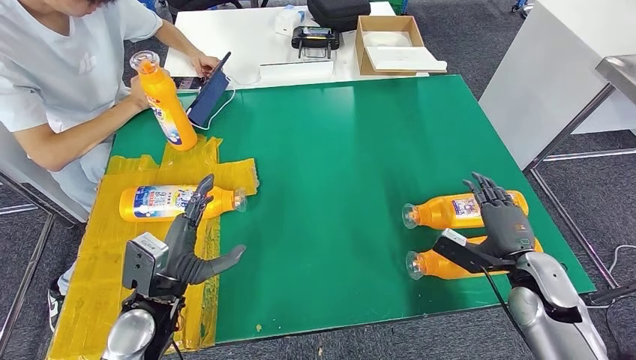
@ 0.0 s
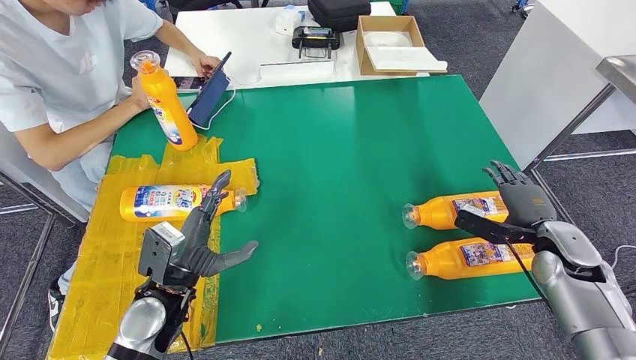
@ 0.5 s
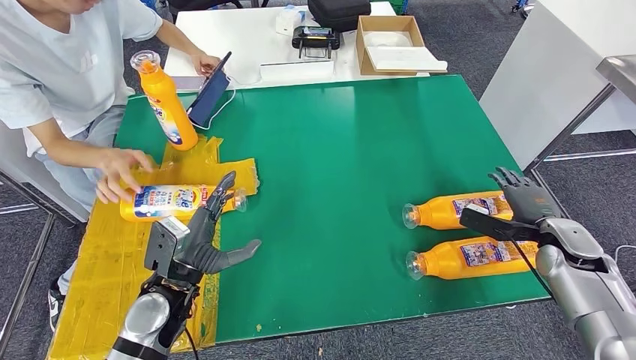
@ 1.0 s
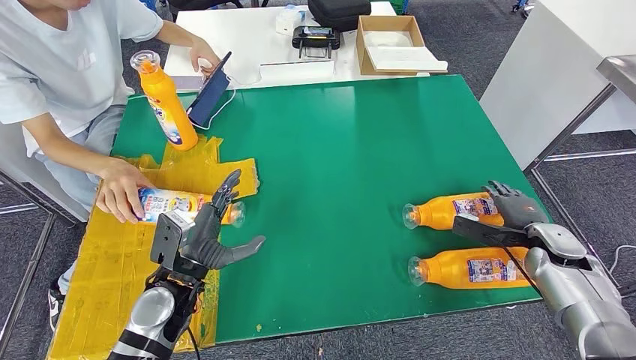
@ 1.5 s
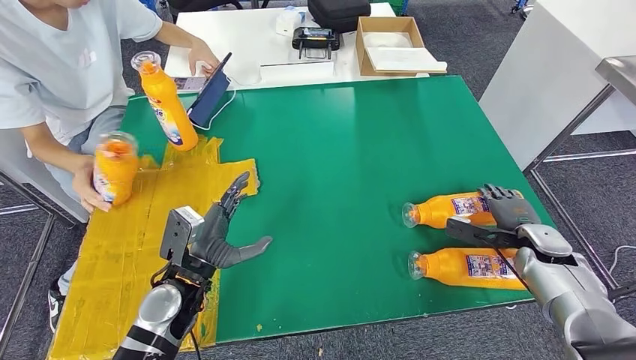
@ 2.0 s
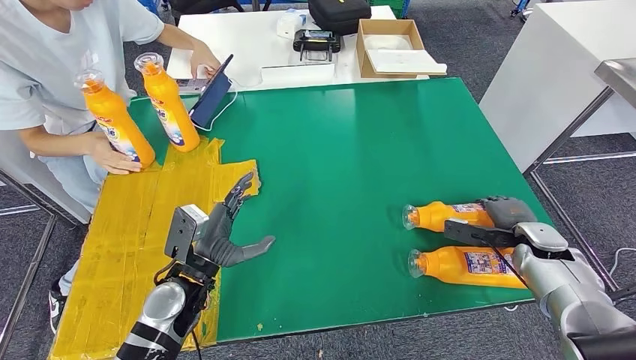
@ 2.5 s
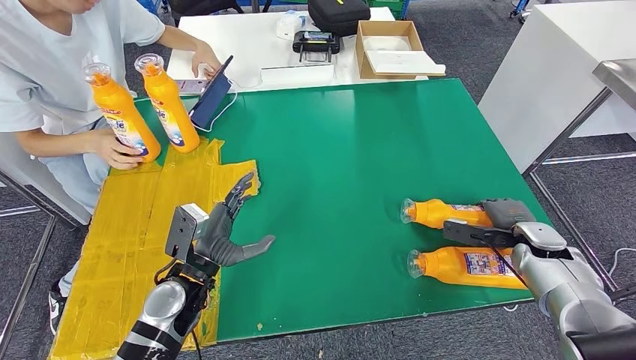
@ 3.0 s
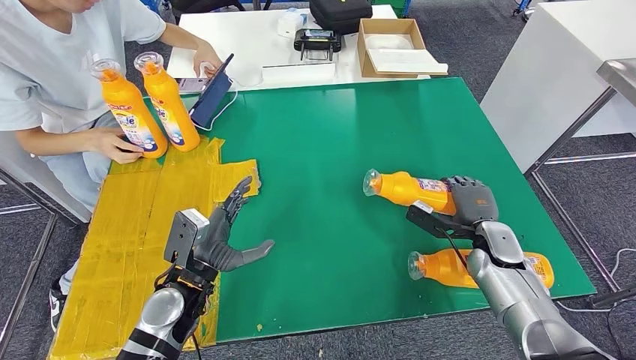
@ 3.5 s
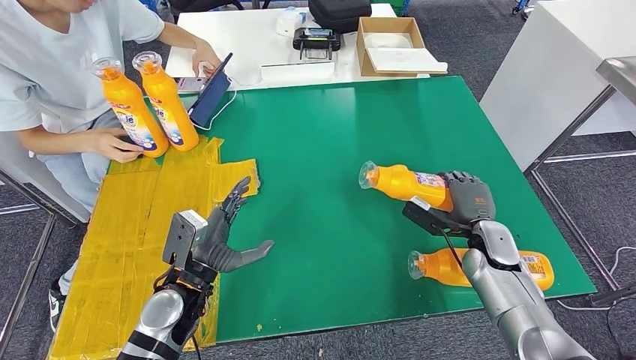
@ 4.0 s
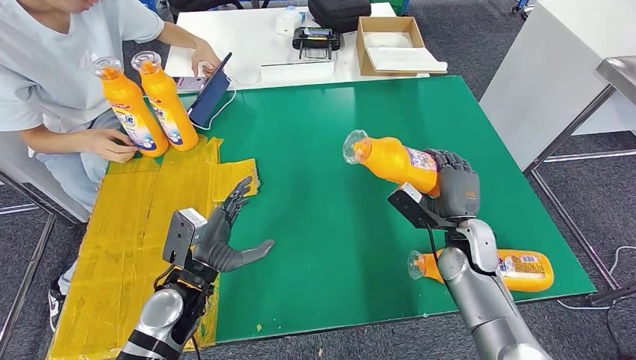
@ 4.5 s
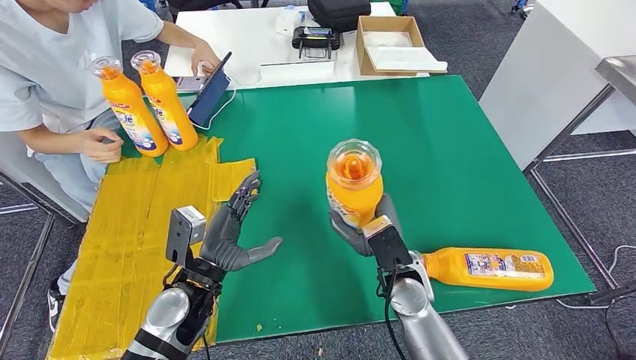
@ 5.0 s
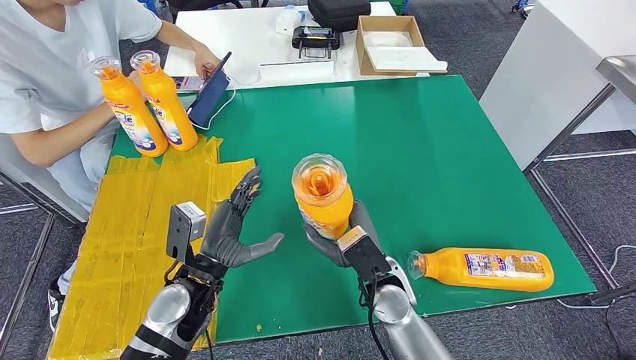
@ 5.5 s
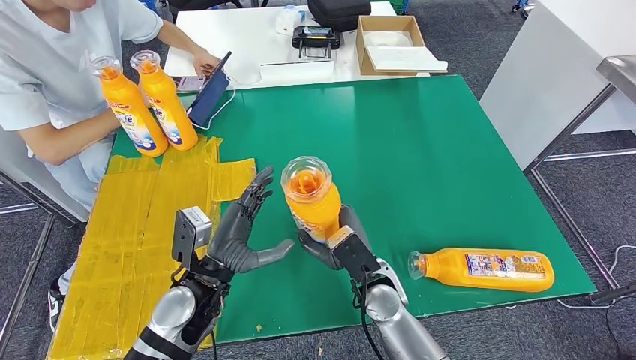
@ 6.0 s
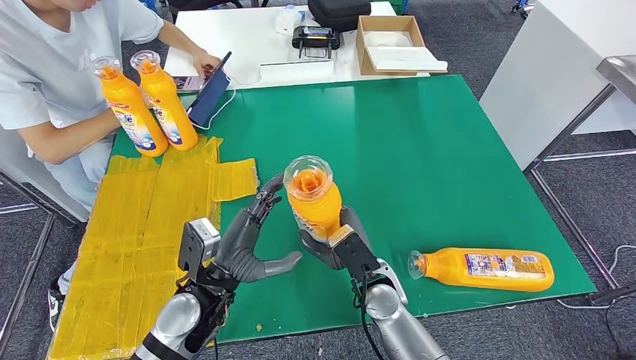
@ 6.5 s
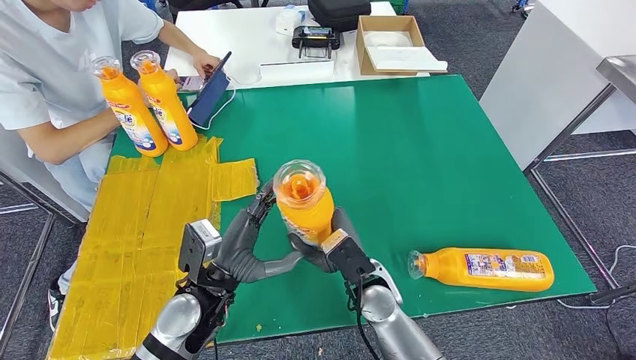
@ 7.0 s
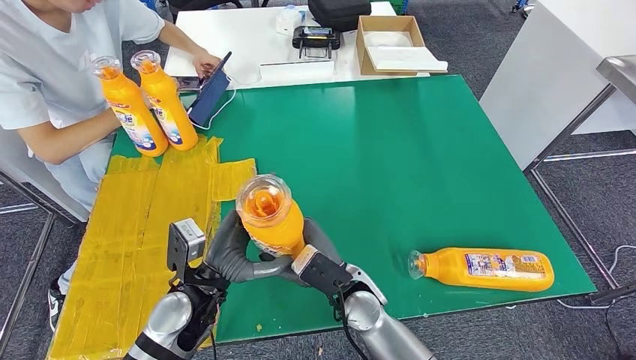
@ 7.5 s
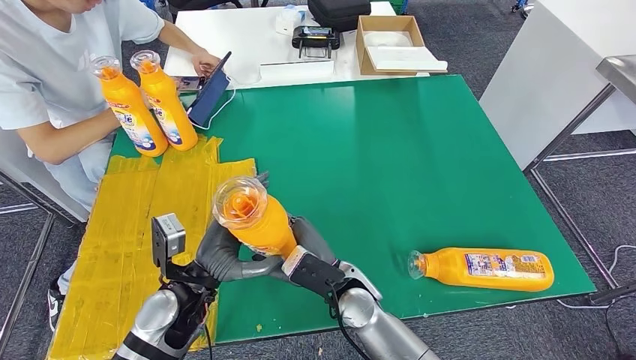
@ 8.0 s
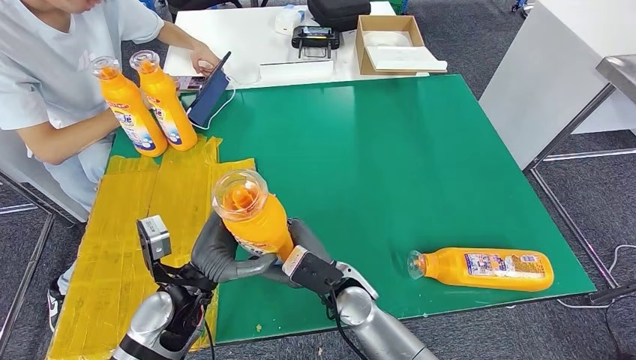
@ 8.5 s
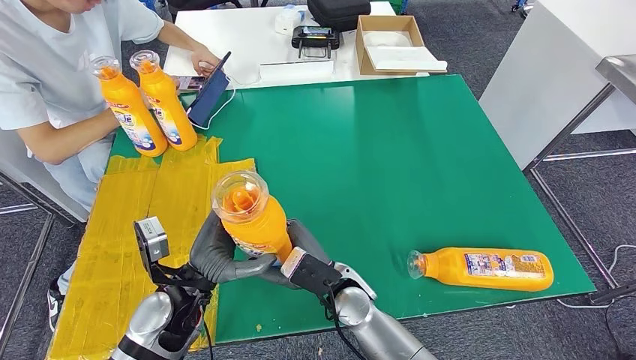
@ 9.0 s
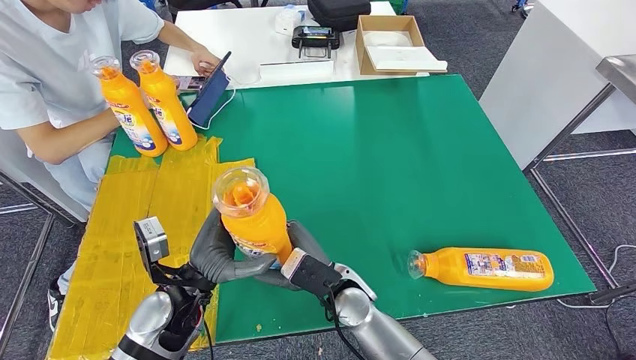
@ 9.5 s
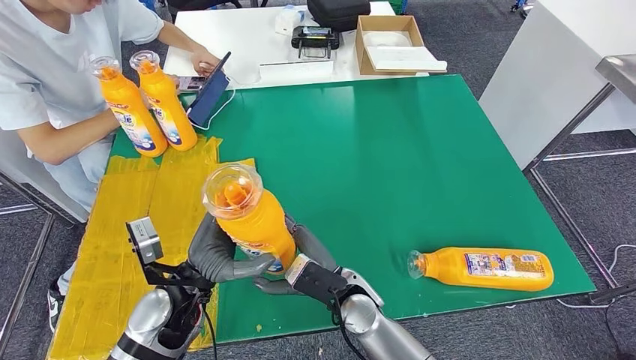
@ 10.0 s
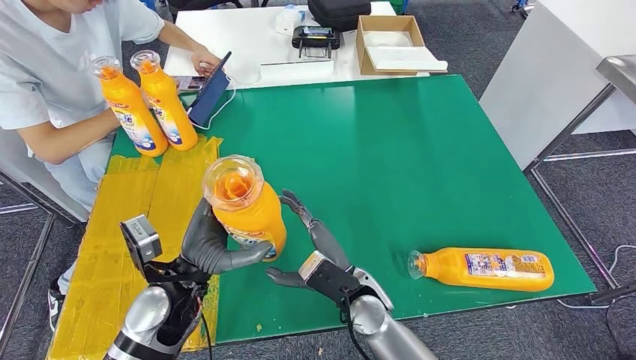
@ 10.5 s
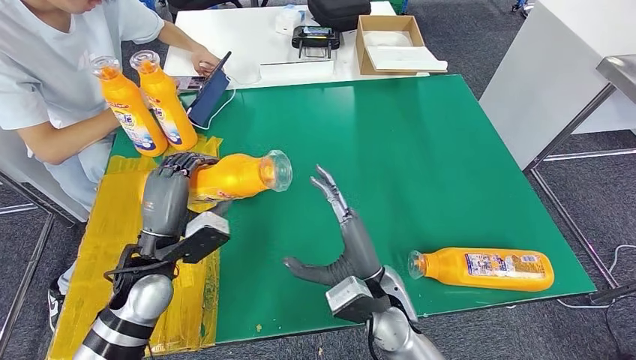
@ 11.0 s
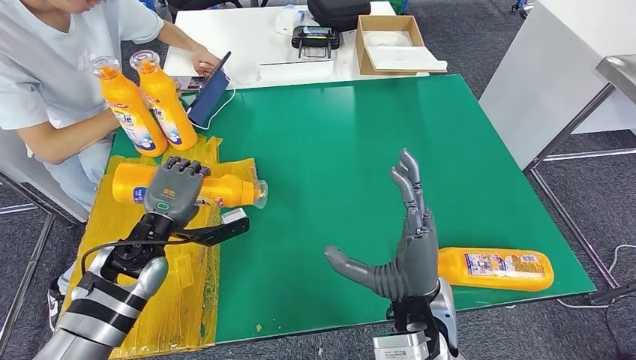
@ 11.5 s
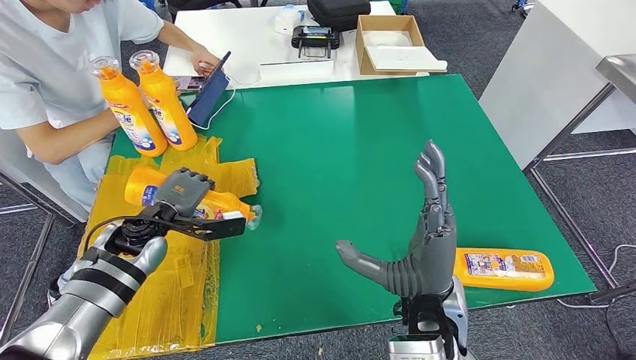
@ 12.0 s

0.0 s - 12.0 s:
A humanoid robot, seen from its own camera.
Step, 3.0 s - 6.0 s: Pick up the fast-moving consumer goods bottle from the table.
0.0 s - 2.0 s: The right hand heads forward and to the right, covering some 10 cm.
2.0 s - 4.0 s: The right hand goes approximately 10 cm to the left.
6.0 s - 8.0 s: The right hand heads to the left, covering roughly 5 cm.
8.0 s - 10.0 s: The hands make only small movements.
10.0 s - 12.0 s: The left hand travels forward and to the left by approximately 15 cm. The right hand travels upward and to the right by some 15 cm.

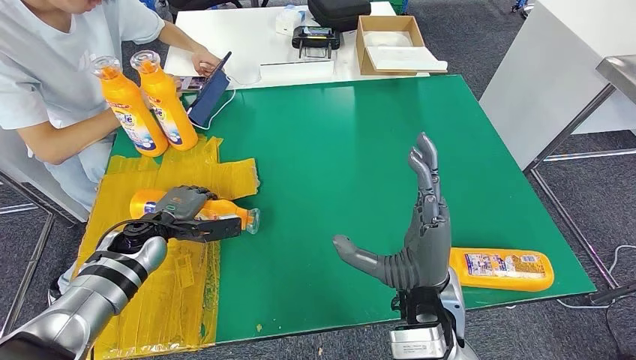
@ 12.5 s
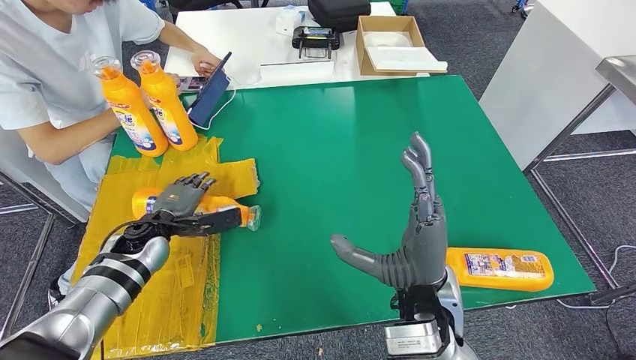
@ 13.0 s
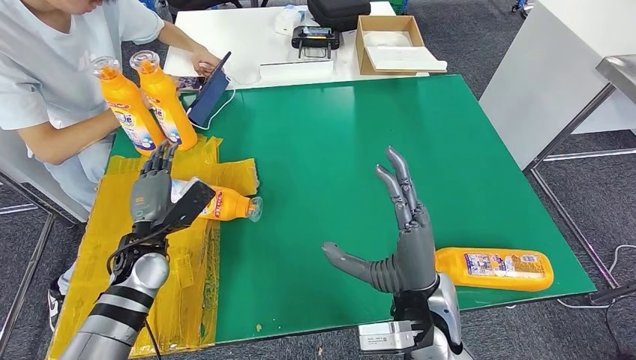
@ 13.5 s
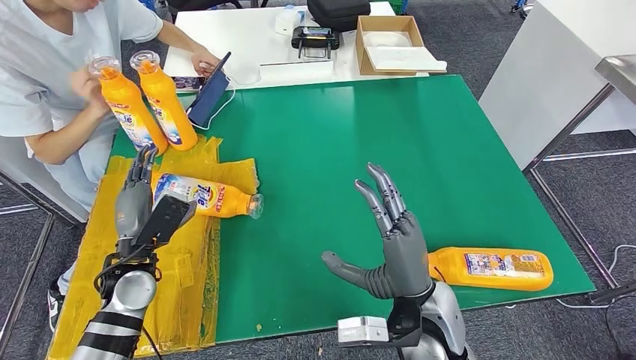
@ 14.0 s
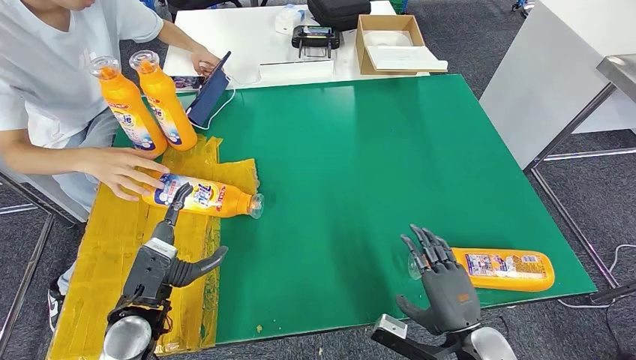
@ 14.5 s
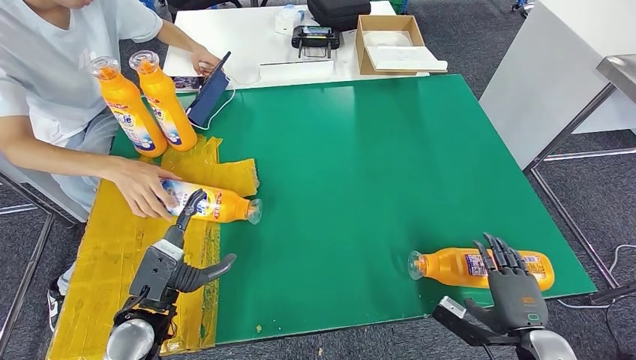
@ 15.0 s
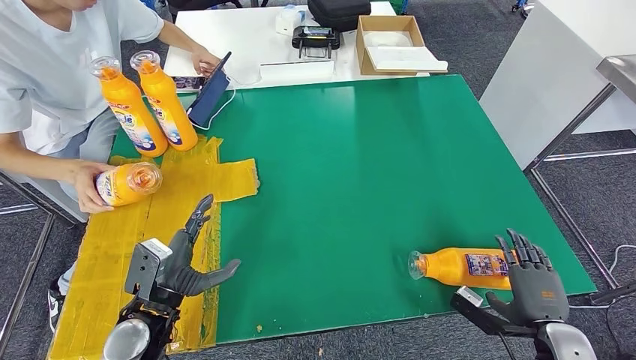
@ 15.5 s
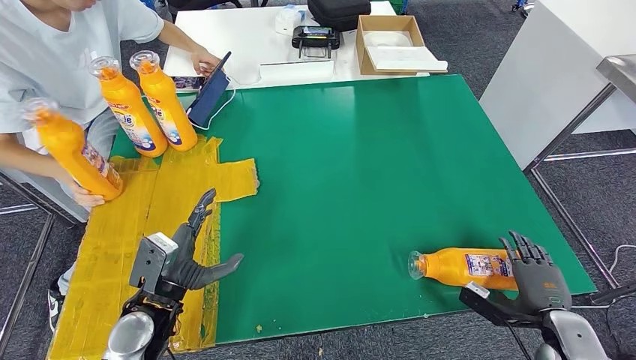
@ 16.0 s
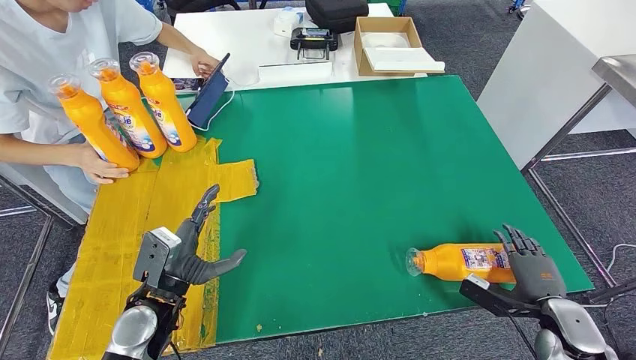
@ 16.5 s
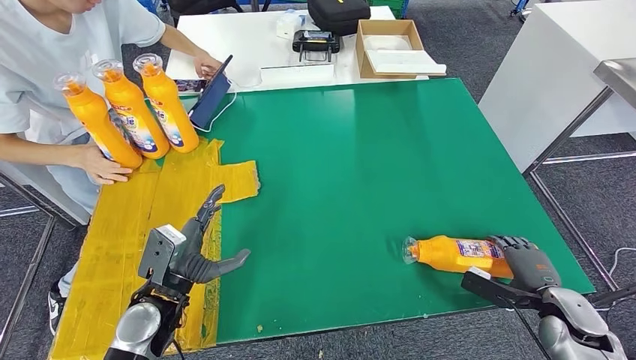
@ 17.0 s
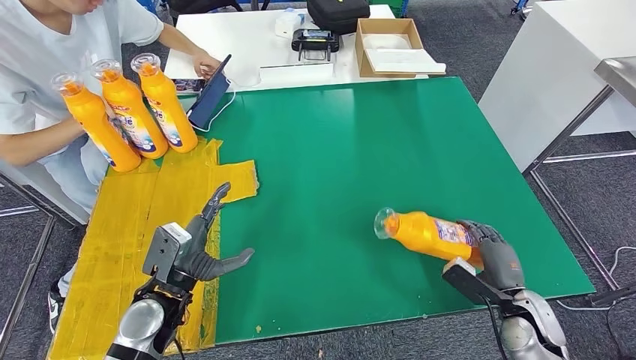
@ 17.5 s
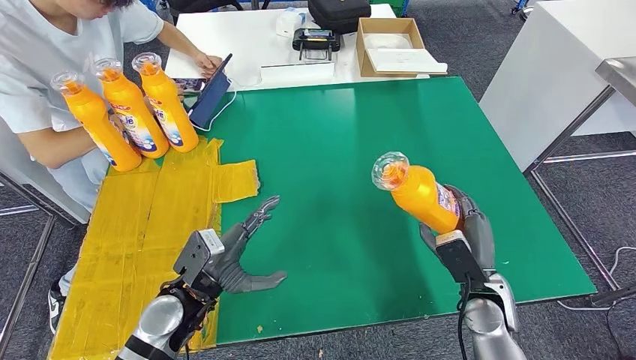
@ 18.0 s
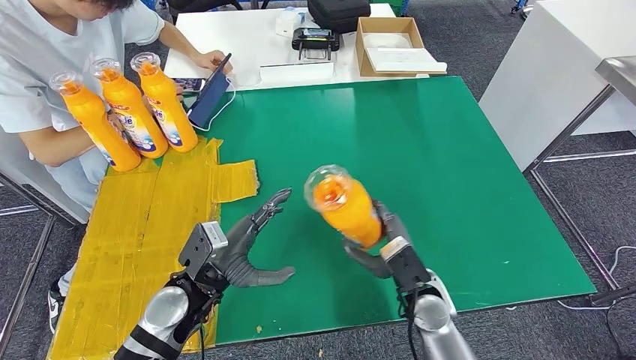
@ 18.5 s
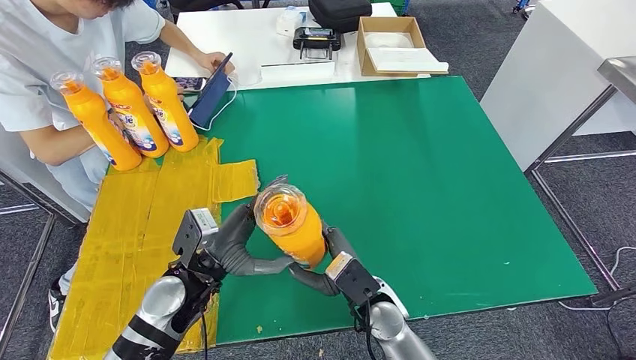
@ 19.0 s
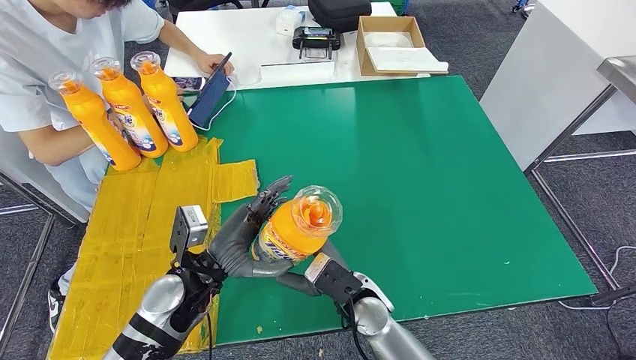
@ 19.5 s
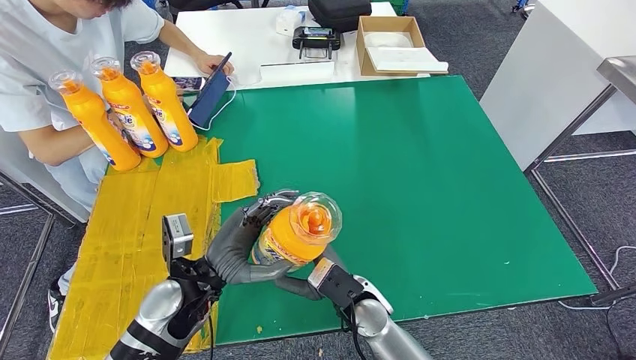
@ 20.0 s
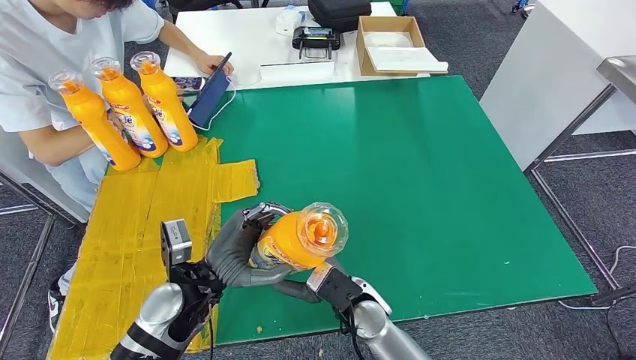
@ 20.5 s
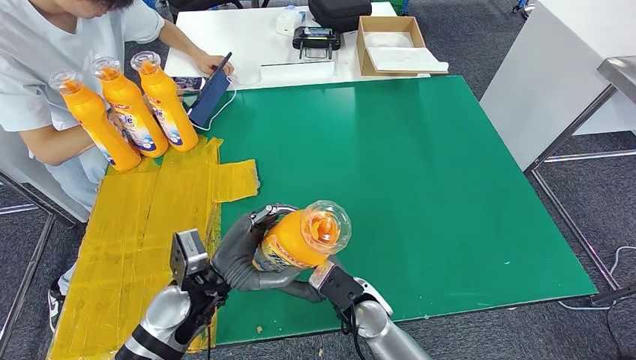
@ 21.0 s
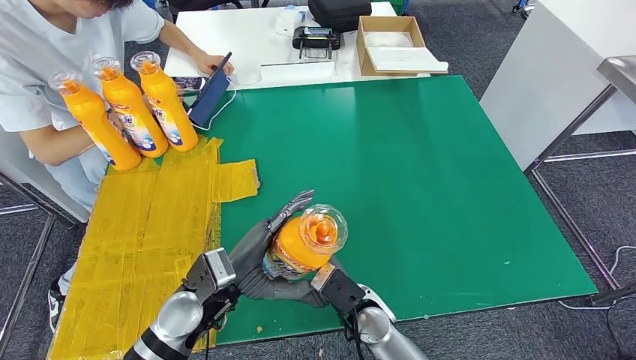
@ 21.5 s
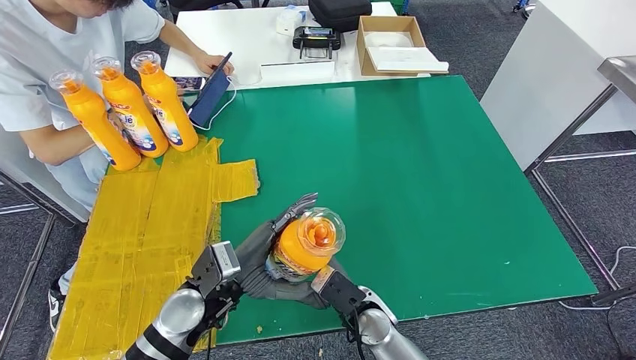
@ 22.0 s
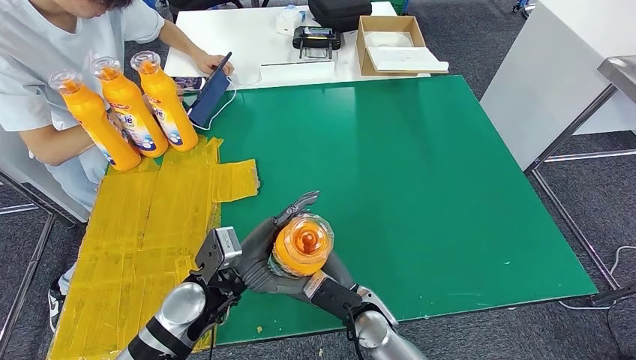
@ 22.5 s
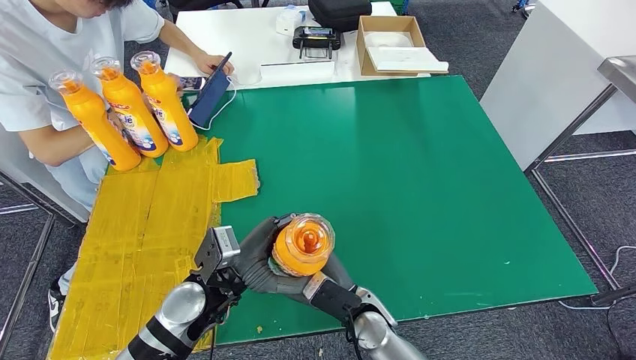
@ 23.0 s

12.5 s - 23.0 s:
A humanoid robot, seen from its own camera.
Step, 15.5 s - 18.0 s: Pick up the fast-moving consumer goods bottle from the table.
12.5 s - 14.5 s: The right hand is displaced downward, to the right and backward by about 15 cm. The left hand travels backward by about 15 cm.
19.0 s - 23.0 s: There are only small adjustments of the hands.
